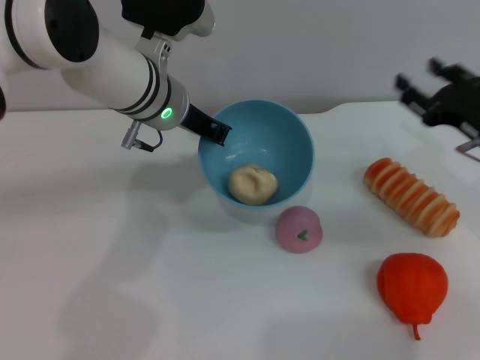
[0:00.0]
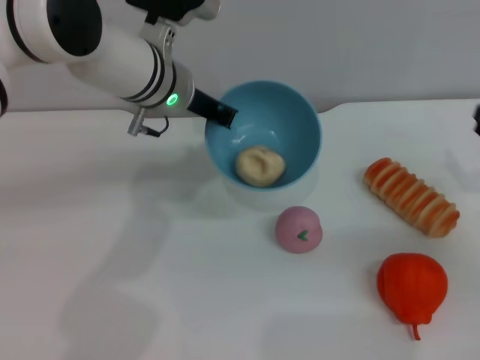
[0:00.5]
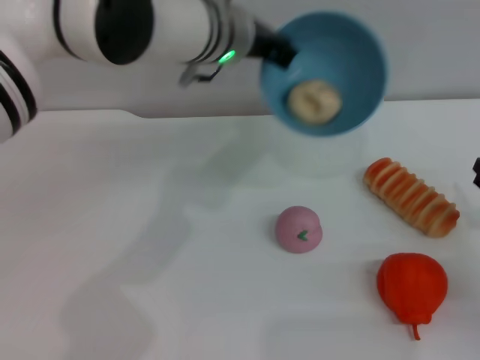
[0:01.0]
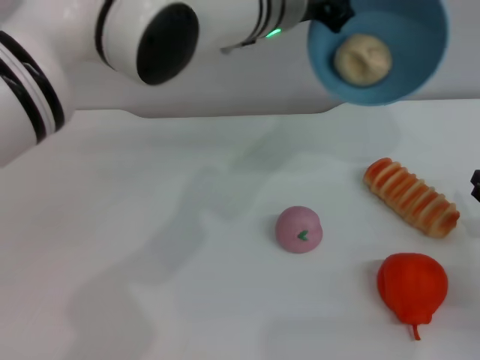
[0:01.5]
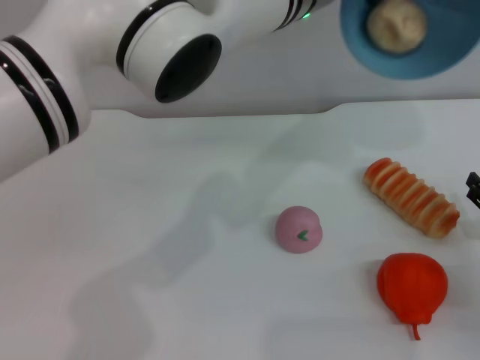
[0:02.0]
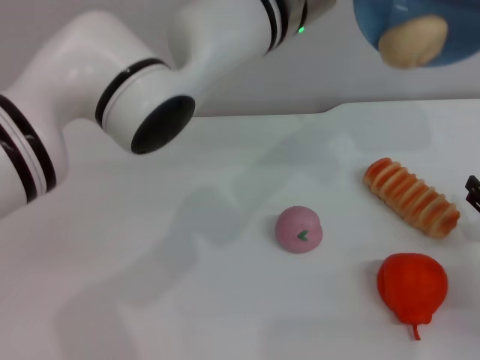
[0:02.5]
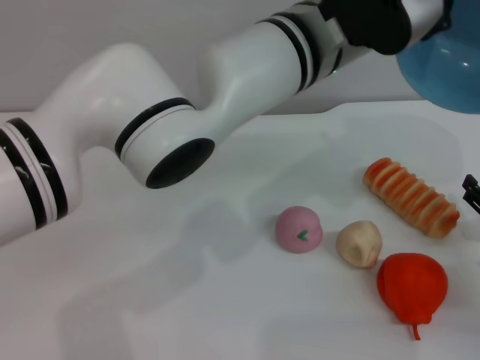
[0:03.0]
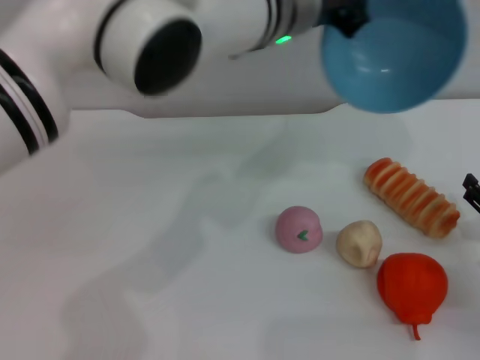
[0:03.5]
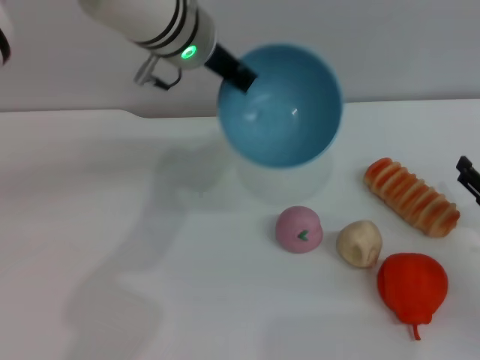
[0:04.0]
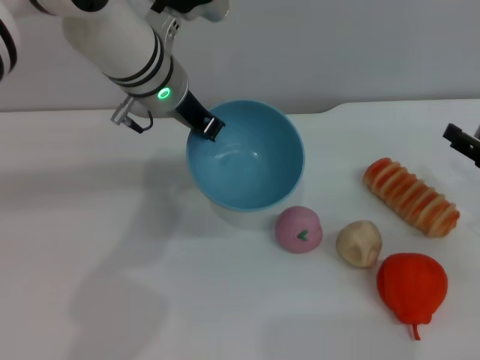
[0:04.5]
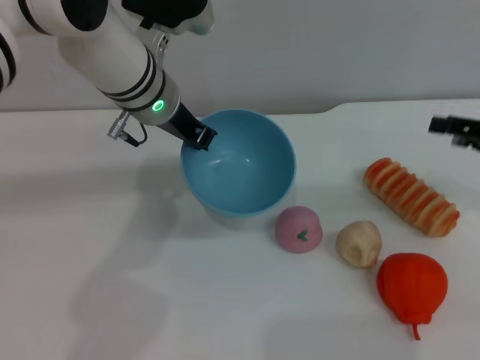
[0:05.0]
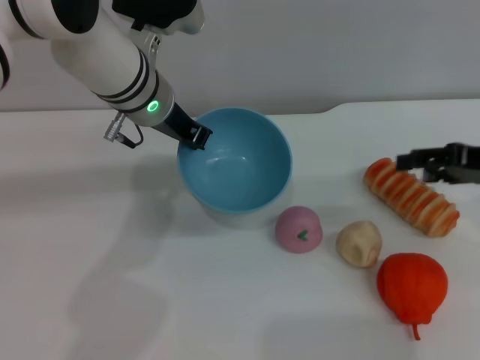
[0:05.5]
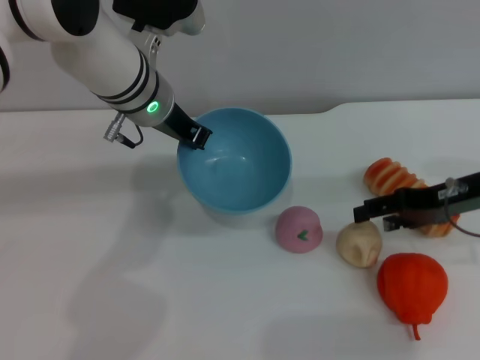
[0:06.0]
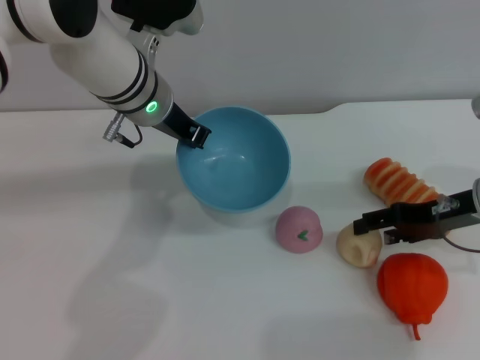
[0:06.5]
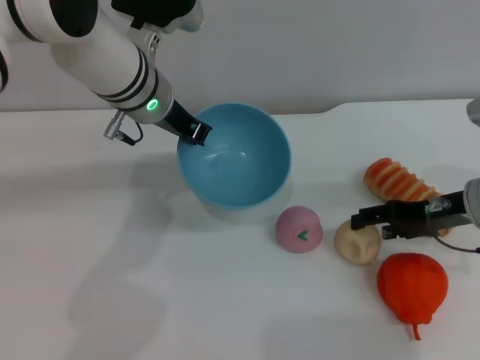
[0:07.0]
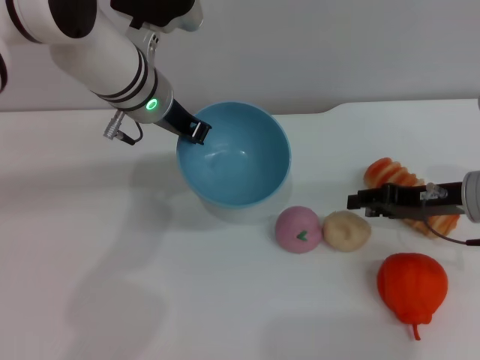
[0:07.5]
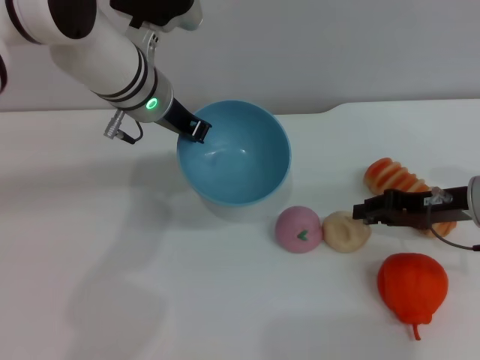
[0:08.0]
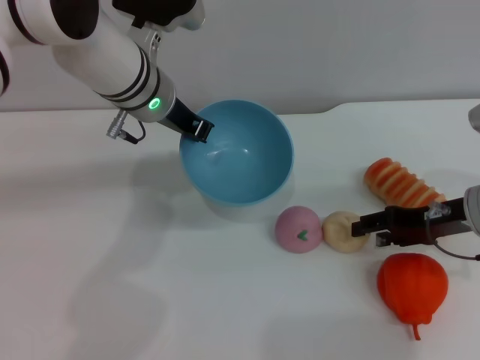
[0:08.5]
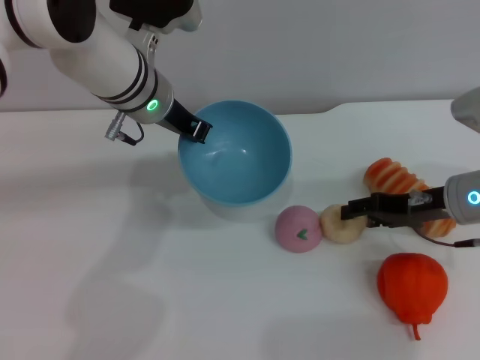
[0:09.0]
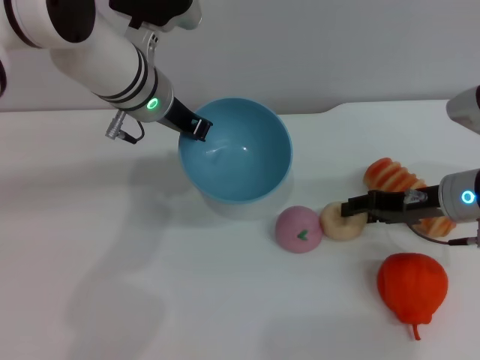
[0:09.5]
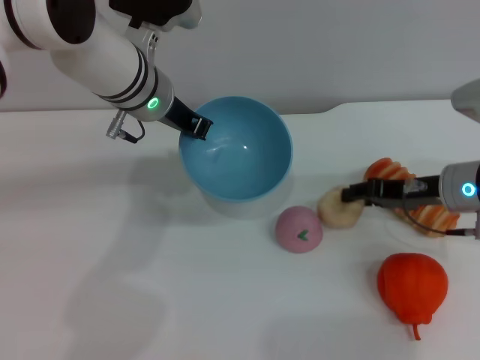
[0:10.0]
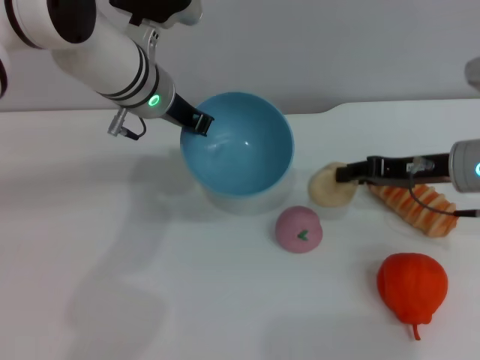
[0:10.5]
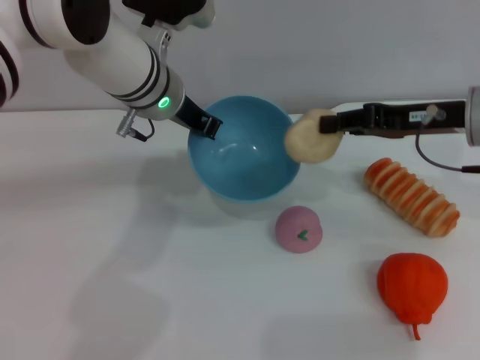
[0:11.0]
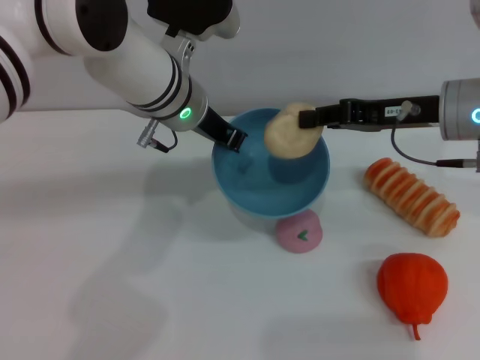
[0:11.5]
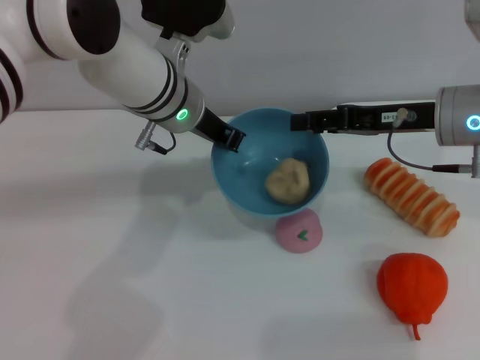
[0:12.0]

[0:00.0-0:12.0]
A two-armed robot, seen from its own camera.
Task of the whole recording: put the egg yolk pastry into the blue bowl and pour it out repeatedly.
Step, 0:00.0 to 0:03.0: Pour the egg yolk pastry out of bowl.
Step, 0:03.5 to 0:10.5: Pick up the egg yolk pastry with the right gripper.
0:00.0 to 0:02.0: The right gripper travels backward and downward by approximately 10 cm. Meanwhile the left gripper travels to the right and upward by roughly 15 cm.
0:02.0 to 0:04.0: The left gripper shifts roughly 10 cm to the left.
0:04.0 to 0:06.0: The left gripper travels downward by roughly 5 cm; the right gripper shifts about 15 cm upward, forward and to the left.
0:06.0 to 0:08.0: The right gripper closes its fingers.
0:08.0 to 0:10.0: The right gripper opens up.
0:10.0 to 0:12.0: The right gripper travels upward by some 10 cm.

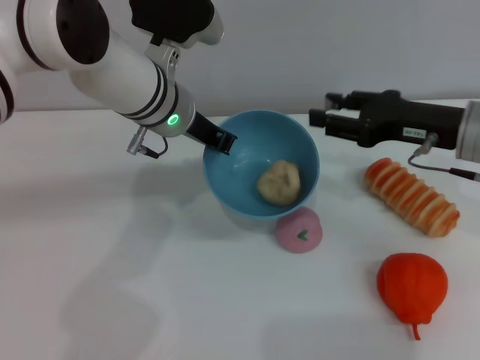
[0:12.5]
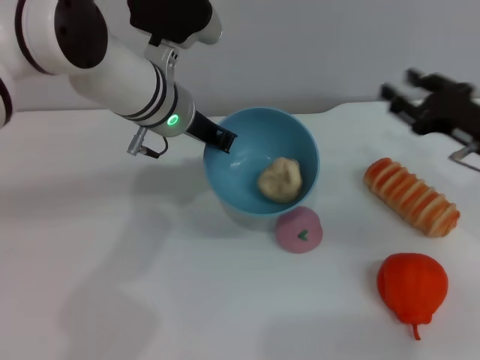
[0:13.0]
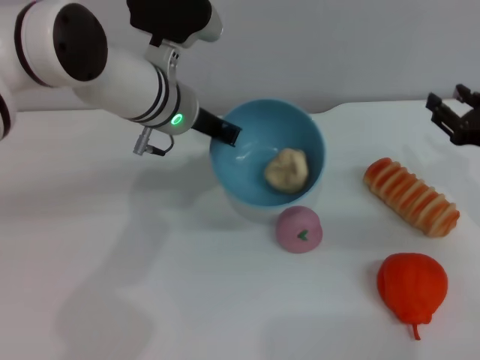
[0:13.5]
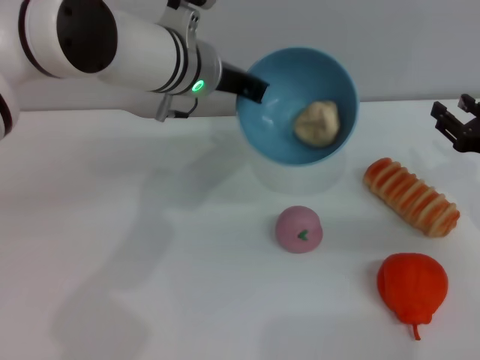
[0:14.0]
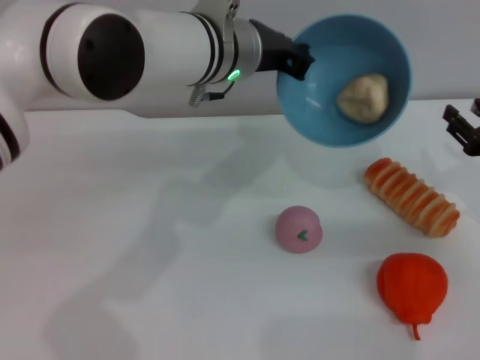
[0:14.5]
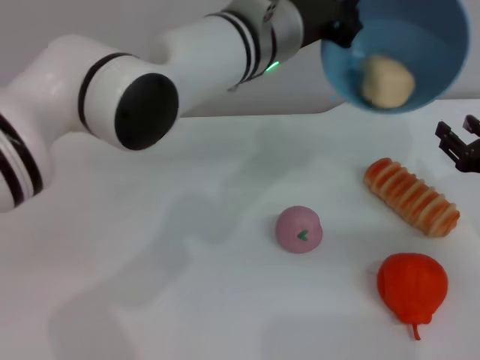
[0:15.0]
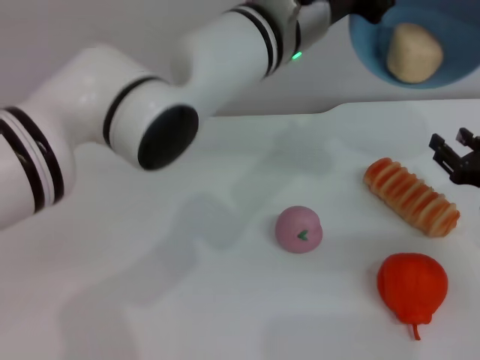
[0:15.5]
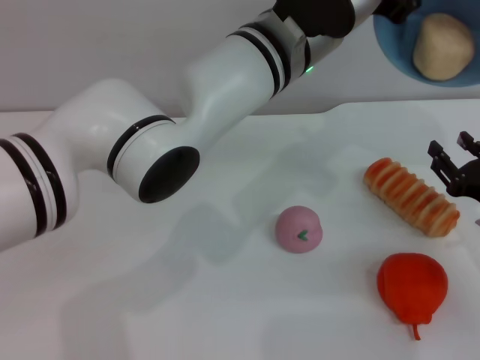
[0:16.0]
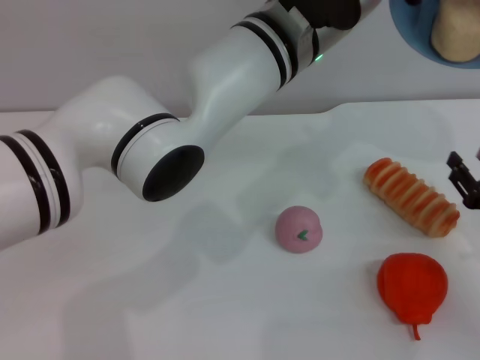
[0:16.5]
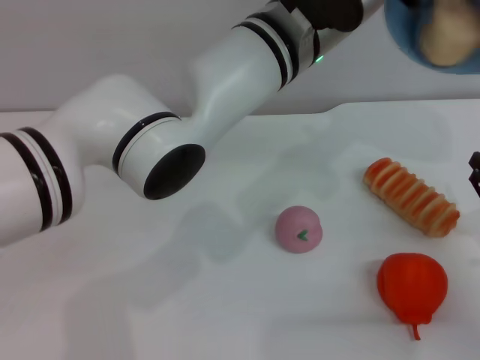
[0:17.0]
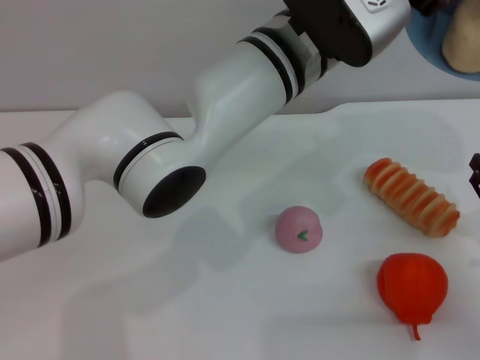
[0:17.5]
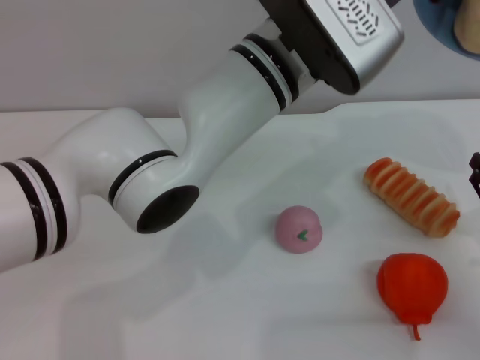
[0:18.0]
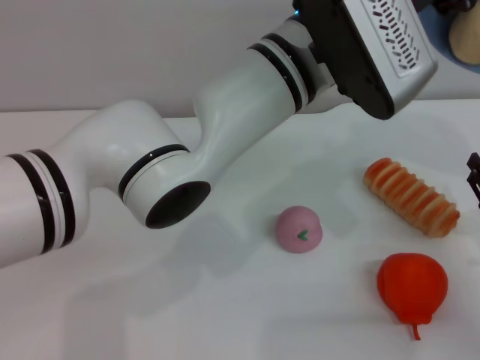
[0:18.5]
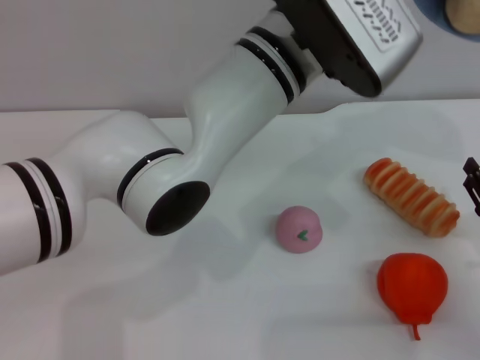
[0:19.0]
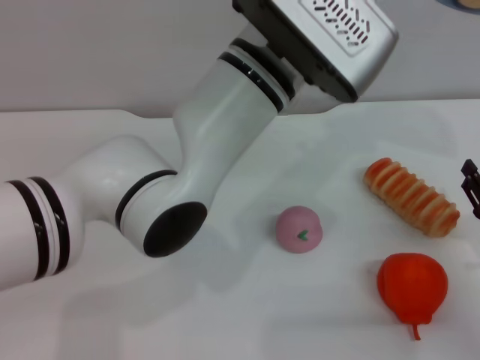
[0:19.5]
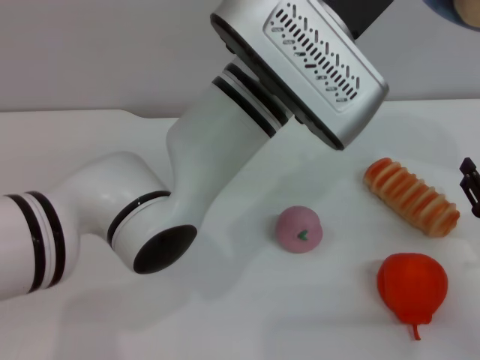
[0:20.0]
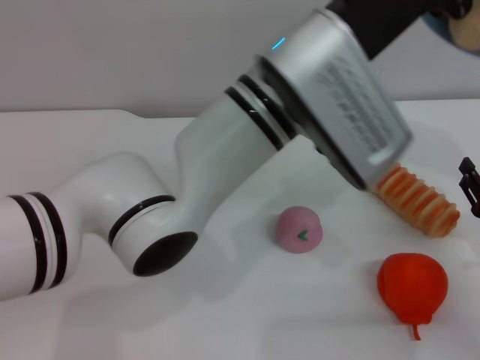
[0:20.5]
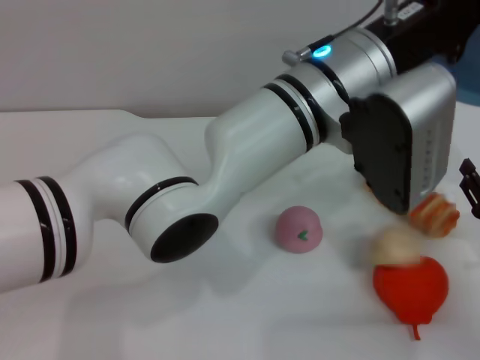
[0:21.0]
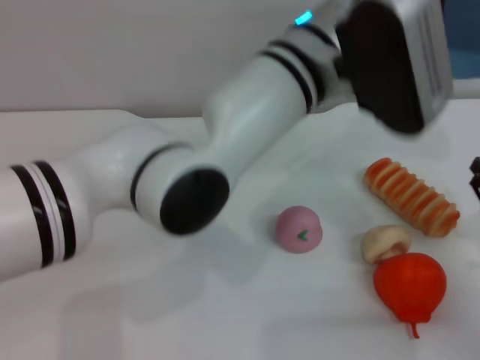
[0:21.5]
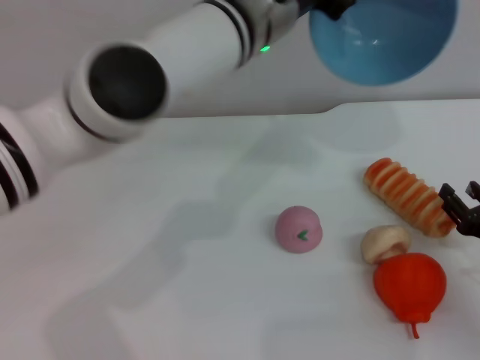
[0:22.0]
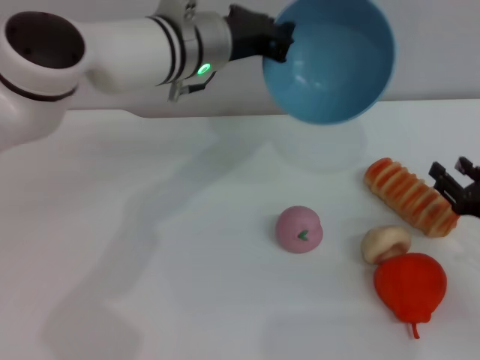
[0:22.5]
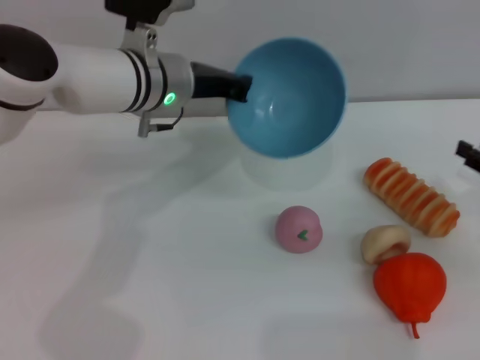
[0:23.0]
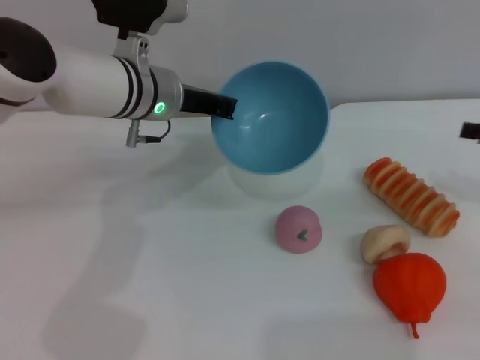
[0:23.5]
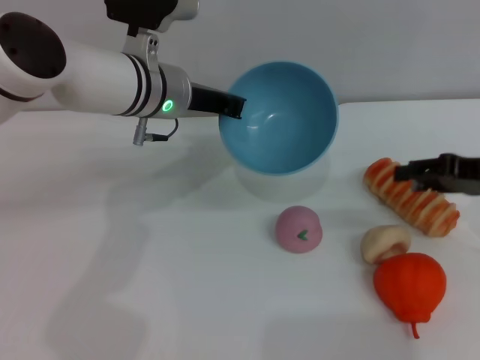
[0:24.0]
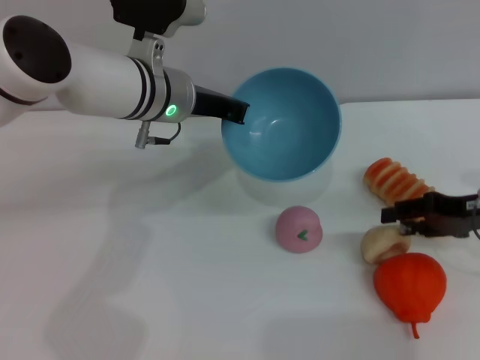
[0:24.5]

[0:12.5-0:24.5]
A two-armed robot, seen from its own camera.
Task of the whole recording: put the egg yolk pastry into the blue bowl and pour it out repeatedly.
Step, 0:13.0 to 0:21.5: Pour the egg yolk pastry out of bowl.
0:12.5 to 0:14.5: The right gripper travels to the right and downward by some 10 cm, while the left gripper is displaced to the right by some 5 cm.
0:14.5 to 0:16.5: The right gripper travels backward by about 5 cm, while the left gripper goes some 5 cm to the right.
0:20.5 to 0:22.5: The left gripper moves forward and to the left, roughly 15 cm.
0:22.5 to 0:24.5: The right gripper goes approximately 10 cm upward and forward.

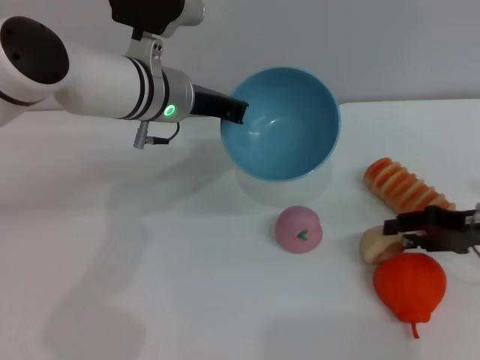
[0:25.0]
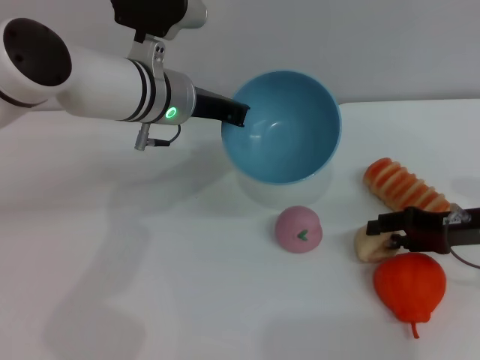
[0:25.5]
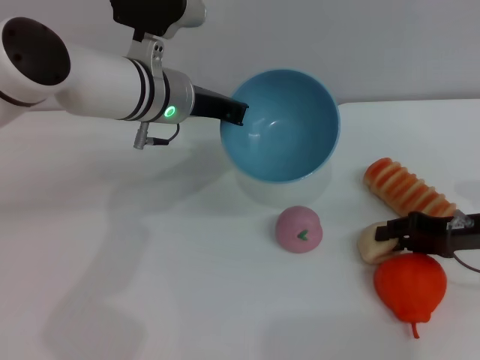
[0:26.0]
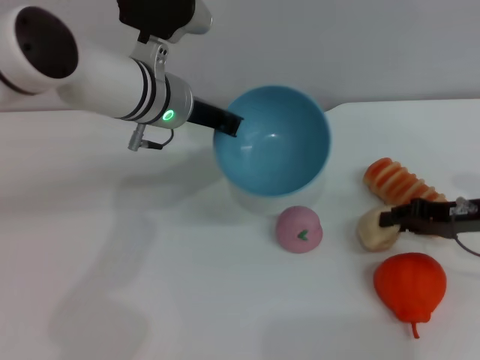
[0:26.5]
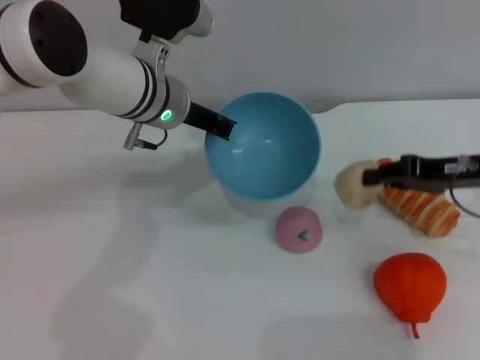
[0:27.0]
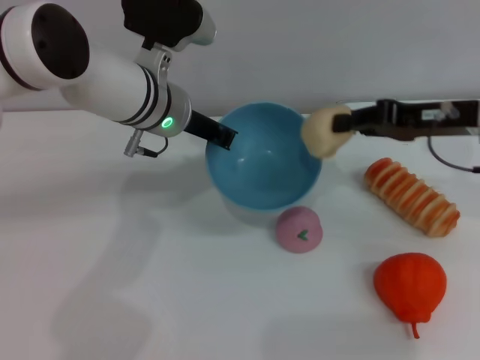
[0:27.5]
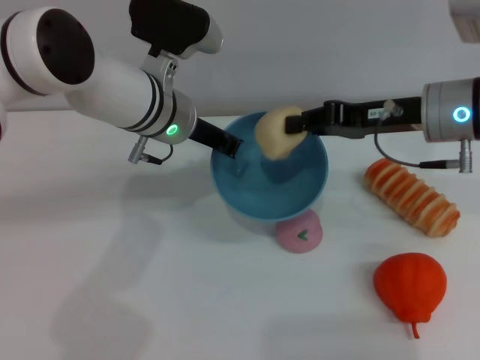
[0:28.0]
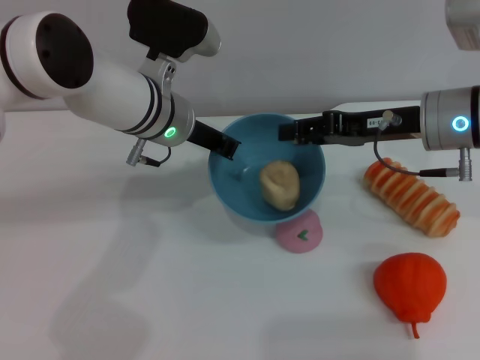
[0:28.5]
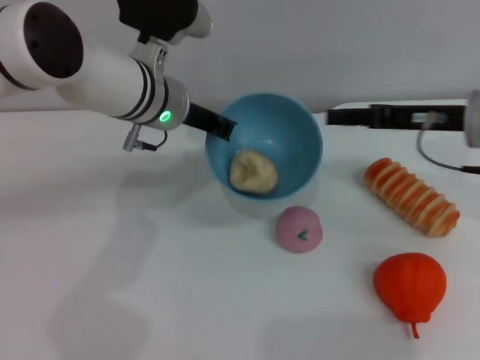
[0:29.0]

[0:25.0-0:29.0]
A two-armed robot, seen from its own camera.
Task of the whole recording: put the egg yolk pastry into the blue bowl and pour it out repeatedly.
0:25.0 to 0:27.0: The right gripper shifts approximately 5 cm upward, and closes.
0:27.0 to 0:29.0: The right gripper opens up.
